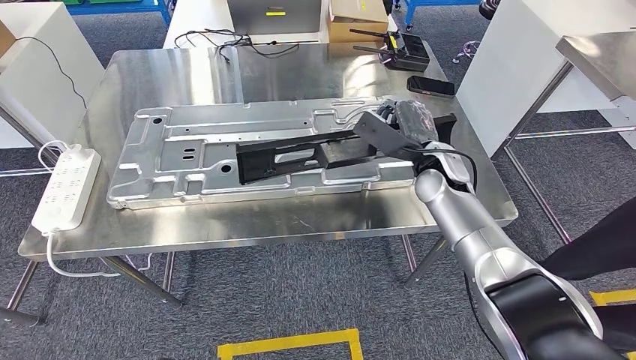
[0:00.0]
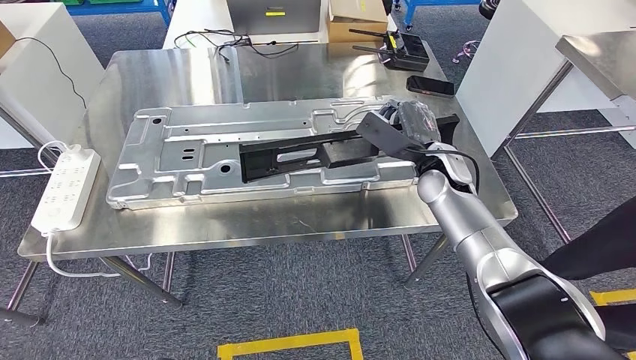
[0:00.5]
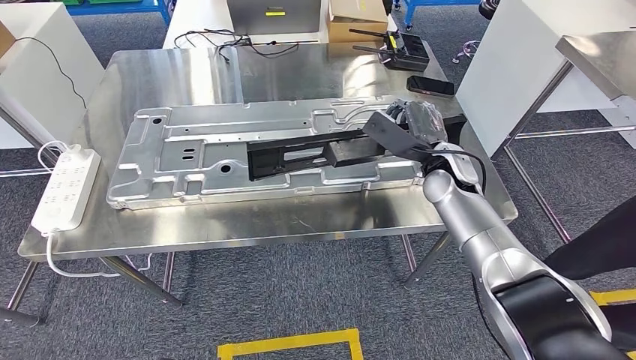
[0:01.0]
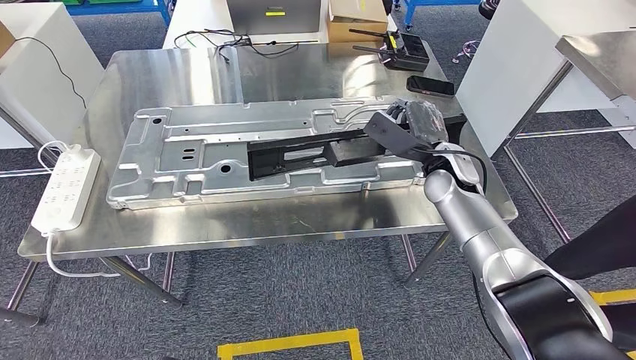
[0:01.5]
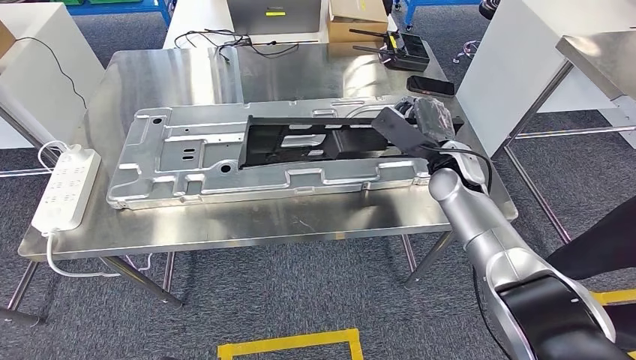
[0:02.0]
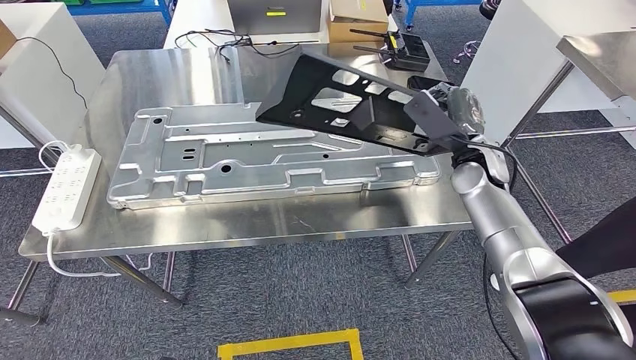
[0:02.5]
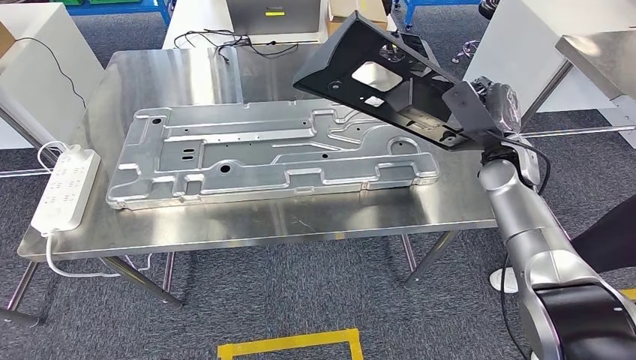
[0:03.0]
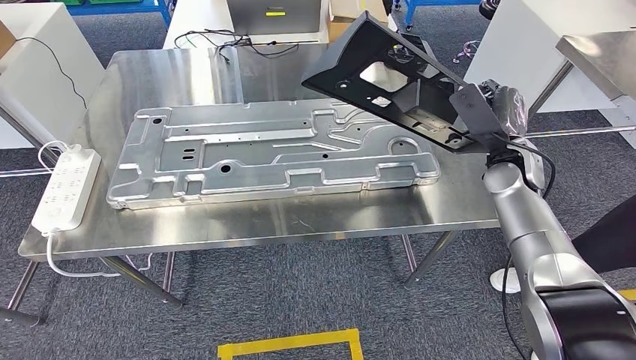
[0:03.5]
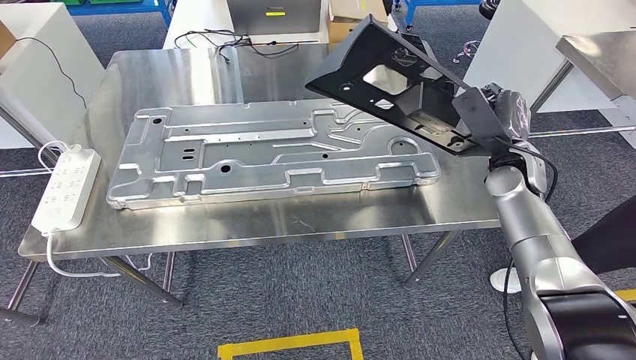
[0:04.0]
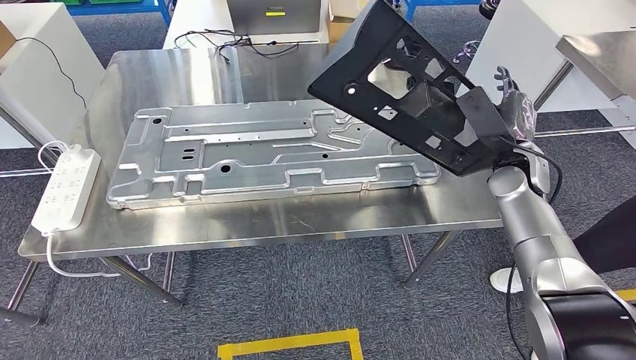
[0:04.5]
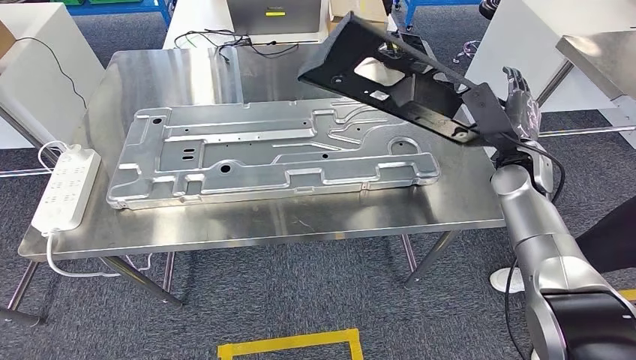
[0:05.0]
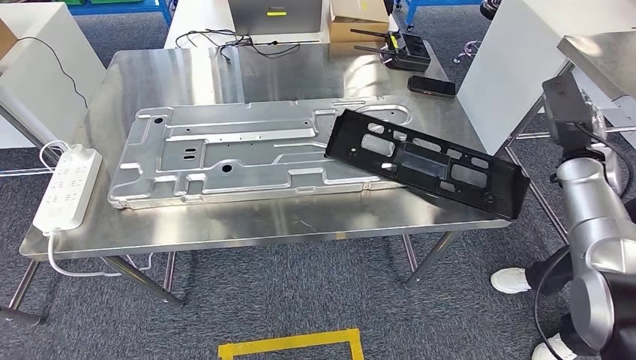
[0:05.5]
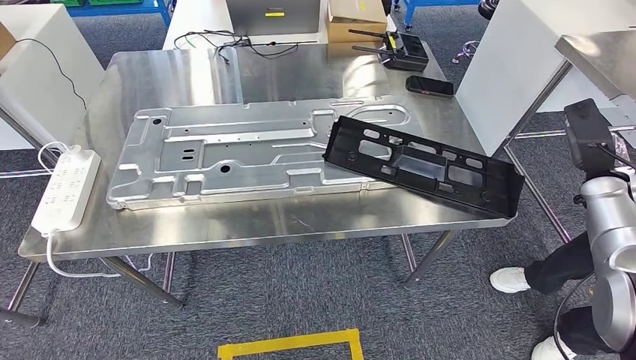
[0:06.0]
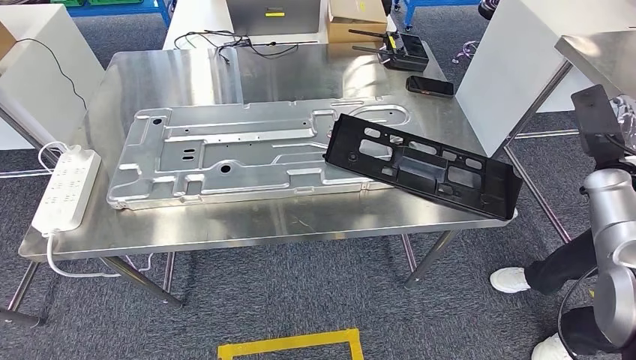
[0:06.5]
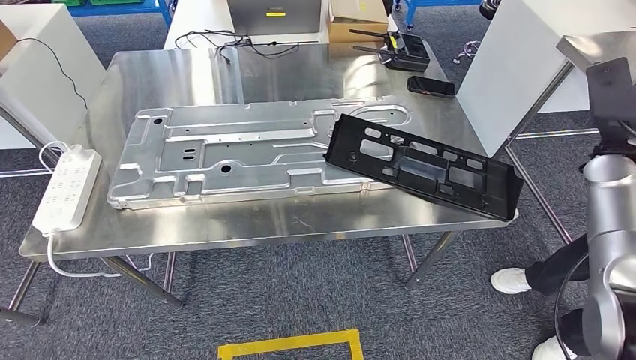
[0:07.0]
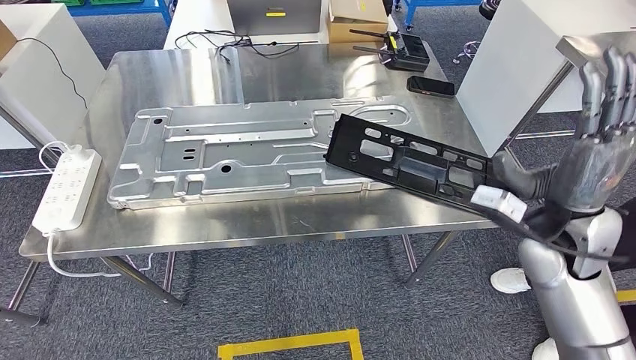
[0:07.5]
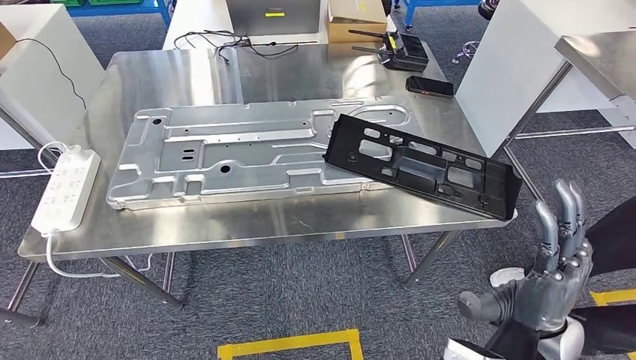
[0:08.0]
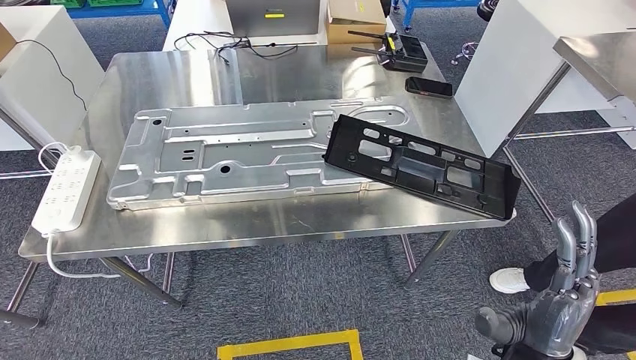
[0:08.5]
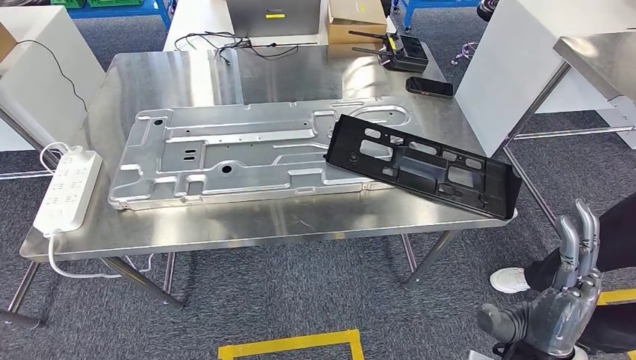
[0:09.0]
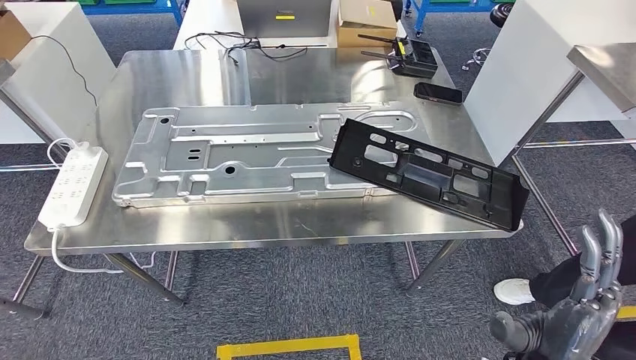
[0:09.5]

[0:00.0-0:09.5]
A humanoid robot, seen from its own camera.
Step, 0:00.0 to 0:07.5: Insert the large material into the corresponding slot on the workbench.
0:00.0 to 0:02.0: There are only small adjustments of the hands.
0:02.0 to 0:04.0: The right hand goes some 10 cm to the right.
0:05.5 to 0:07.5: The right hand heads backward and to the left, covering roughly 20 cm.

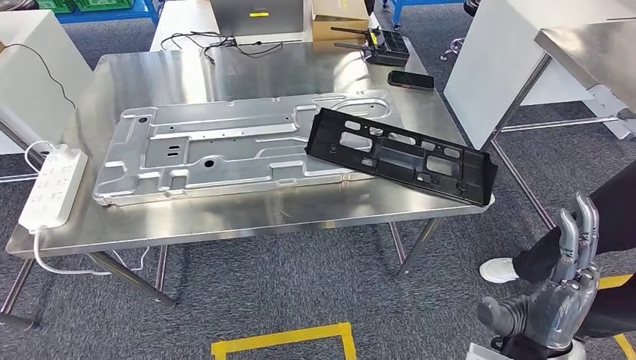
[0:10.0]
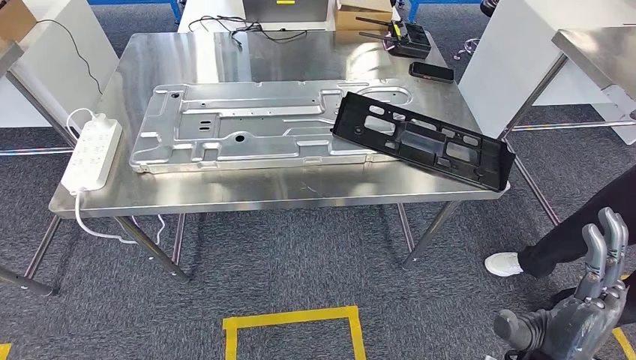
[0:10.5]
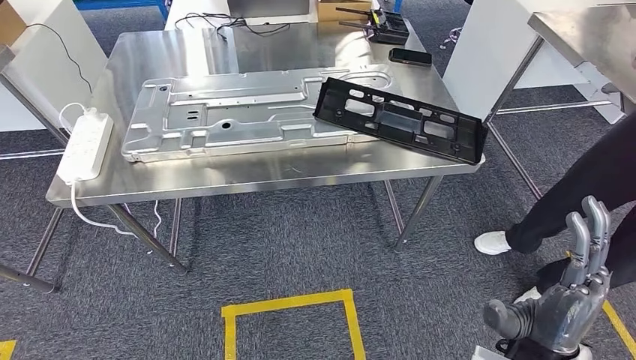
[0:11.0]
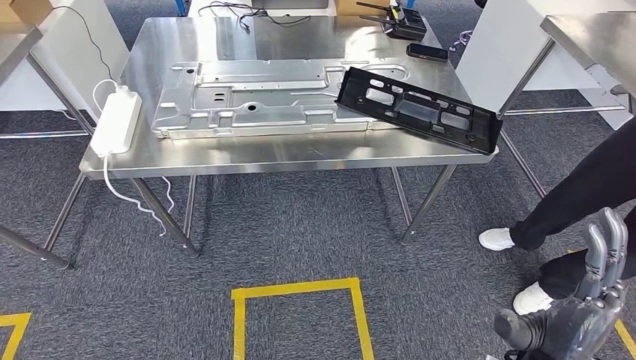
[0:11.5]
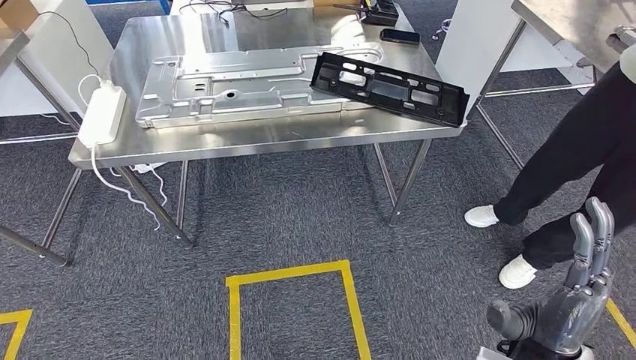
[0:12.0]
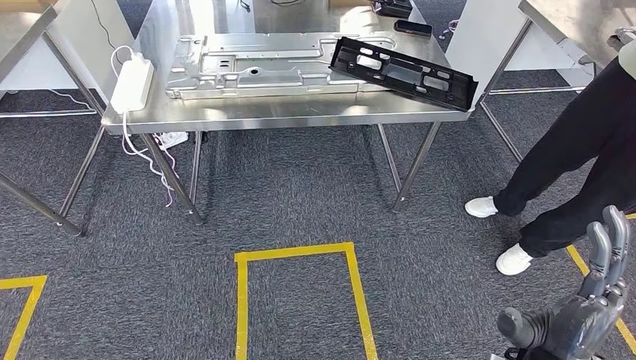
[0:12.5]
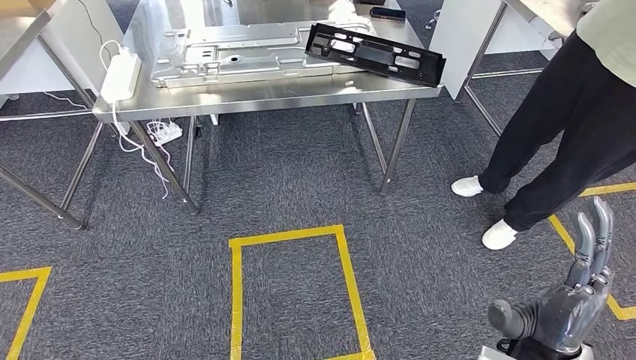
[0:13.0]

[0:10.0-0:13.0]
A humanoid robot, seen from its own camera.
Step, 0:10.0 to 0:13.0: Move to the initial position of the shelf.

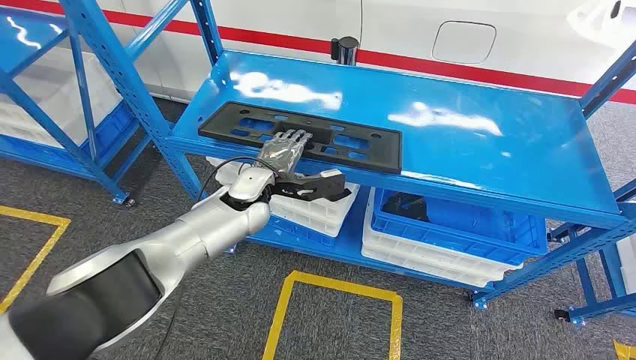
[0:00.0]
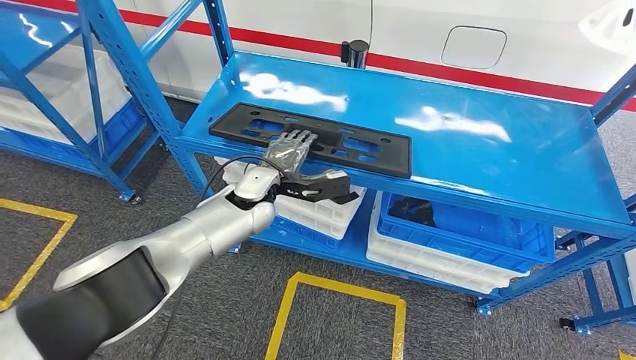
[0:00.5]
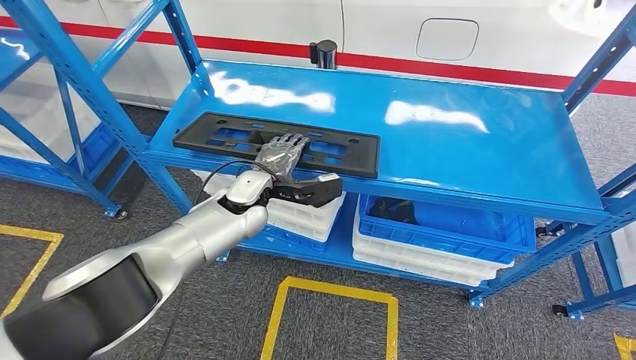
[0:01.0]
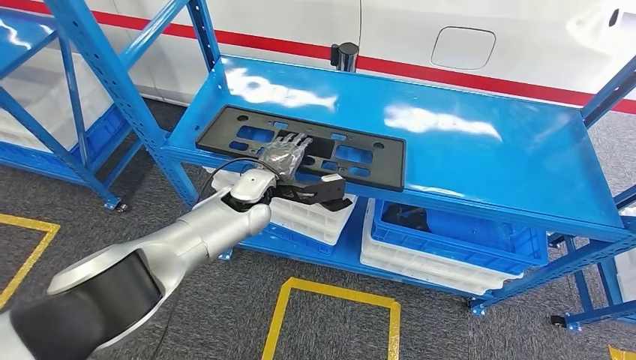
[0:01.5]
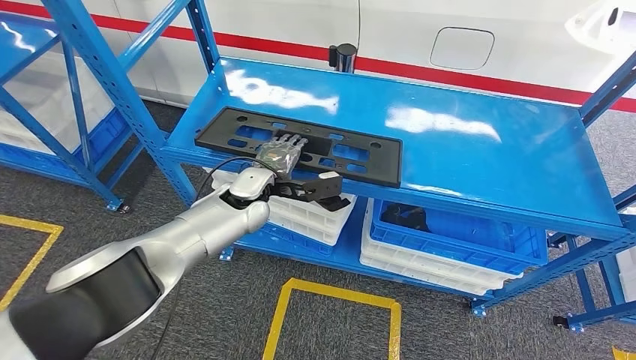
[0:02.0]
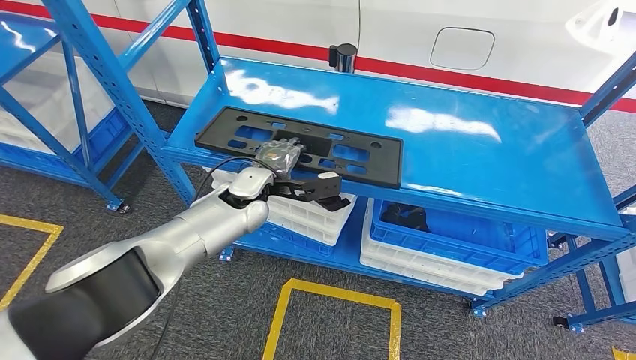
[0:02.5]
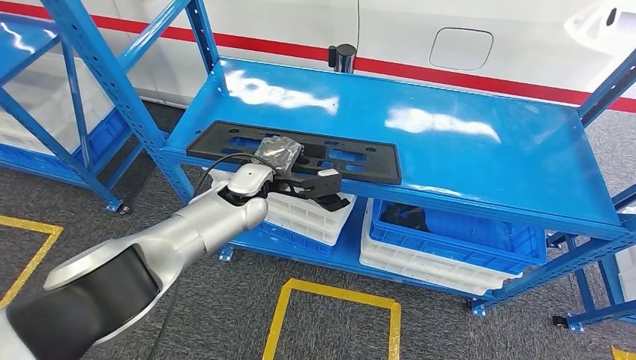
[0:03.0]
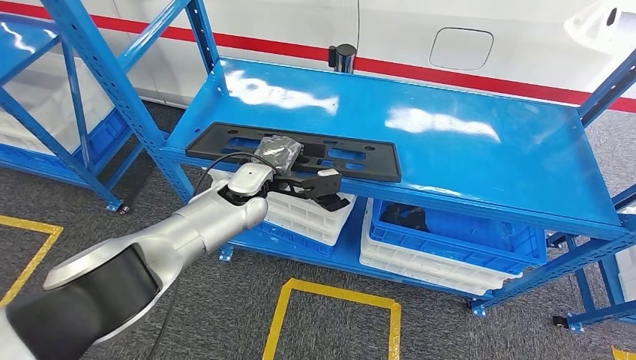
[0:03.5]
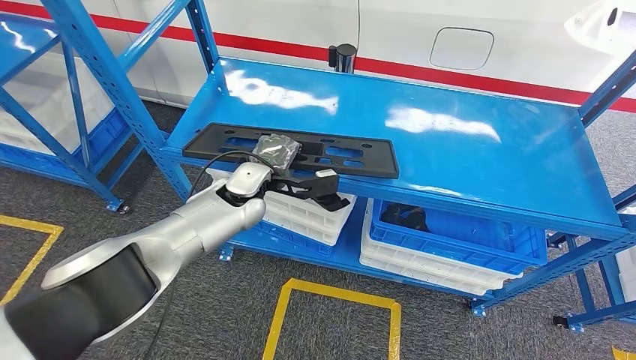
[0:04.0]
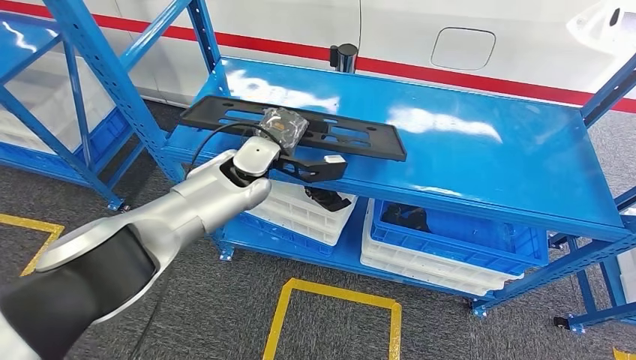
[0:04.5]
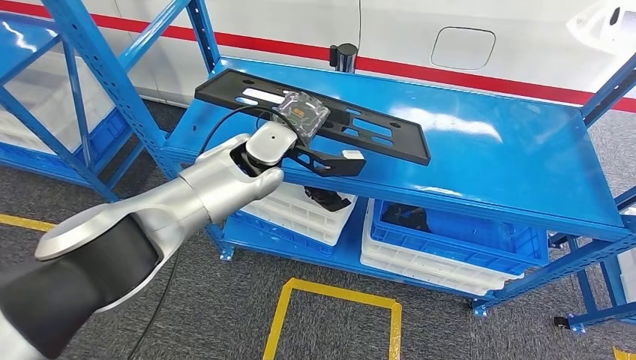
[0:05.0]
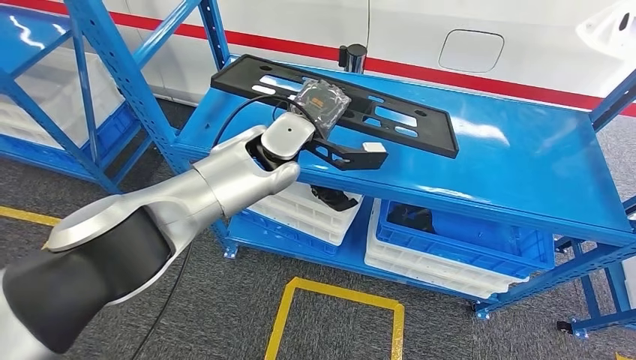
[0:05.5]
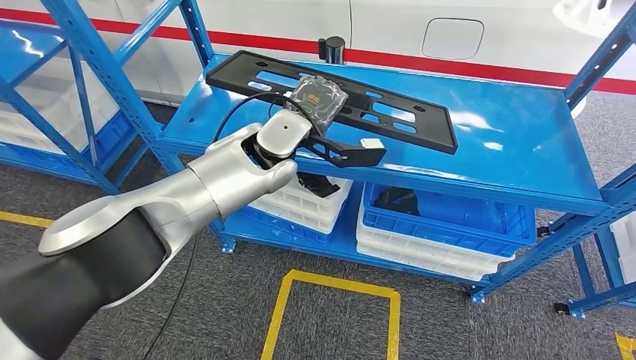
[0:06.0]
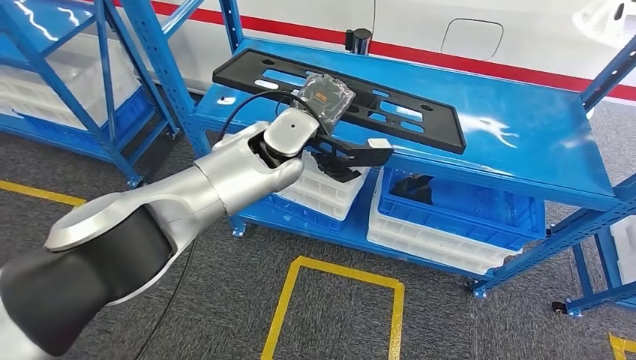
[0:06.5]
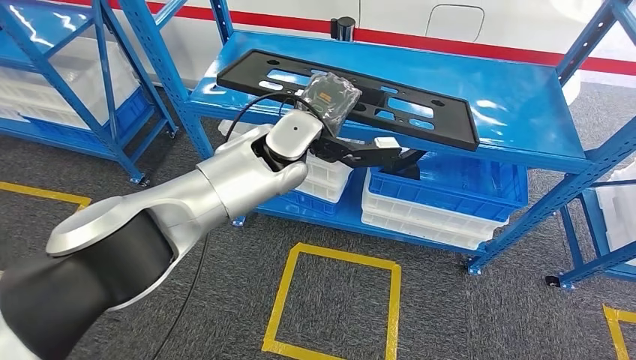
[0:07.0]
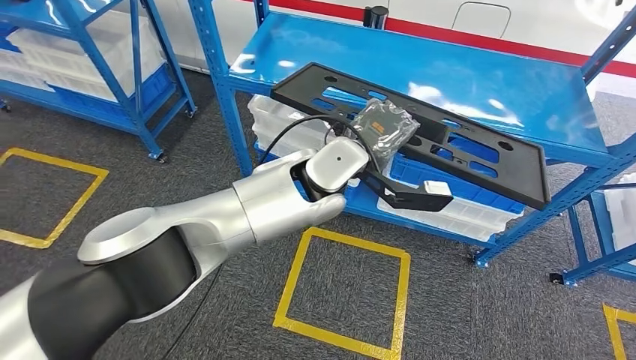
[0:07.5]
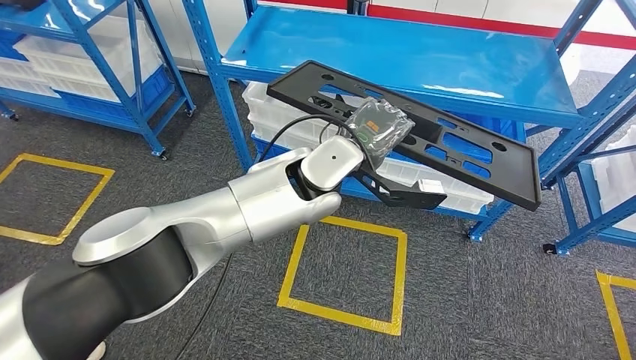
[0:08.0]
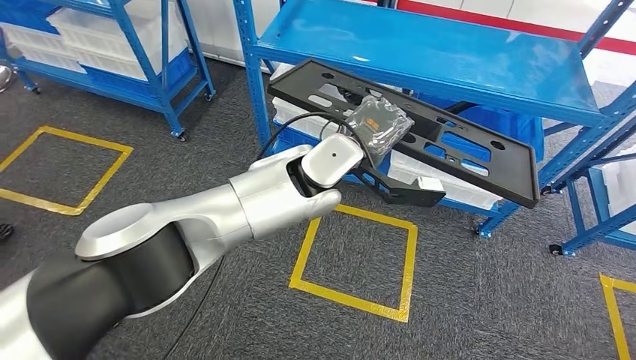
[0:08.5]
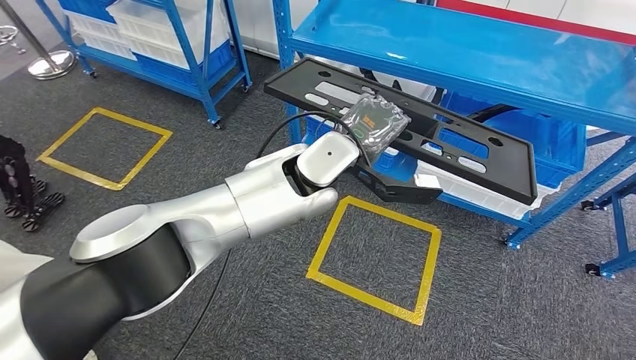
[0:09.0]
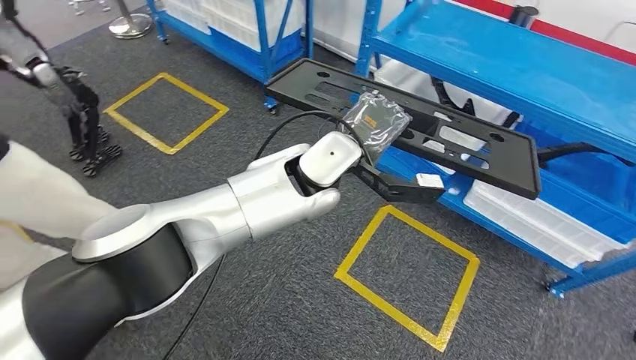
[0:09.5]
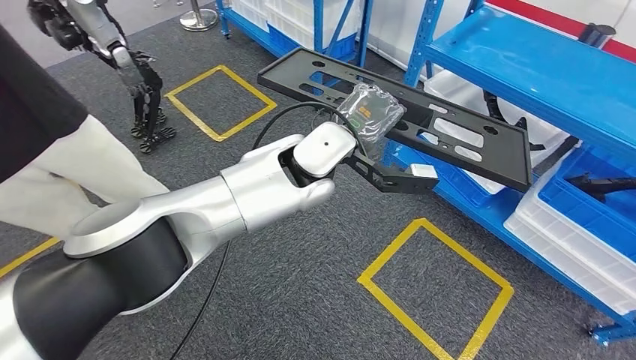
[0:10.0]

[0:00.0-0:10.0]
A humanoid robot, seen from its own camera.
Step, 0:00.0 to 0:06.5: Pick up the large material from the shelf.
0:02.0 to 0:04.0: Neither hand changes place.
